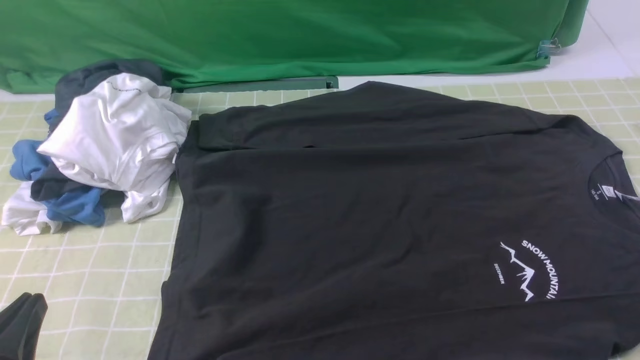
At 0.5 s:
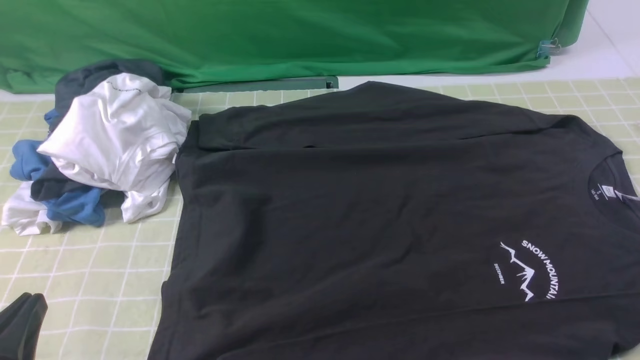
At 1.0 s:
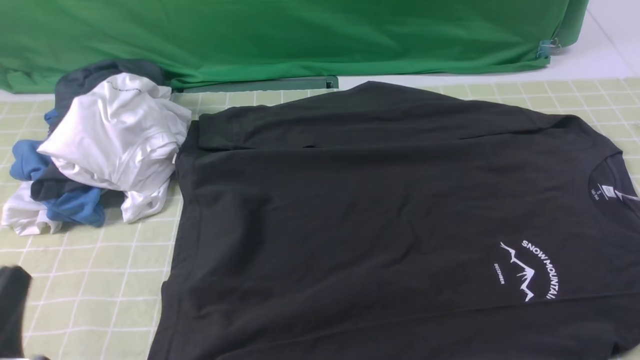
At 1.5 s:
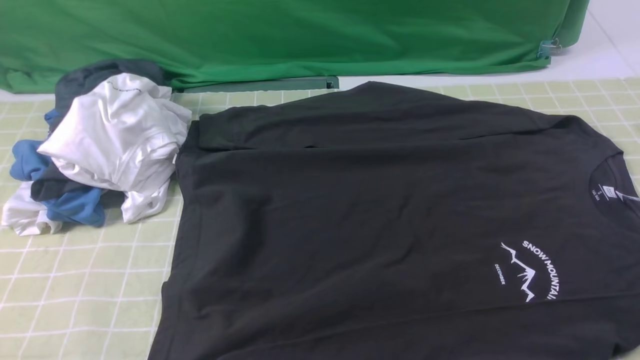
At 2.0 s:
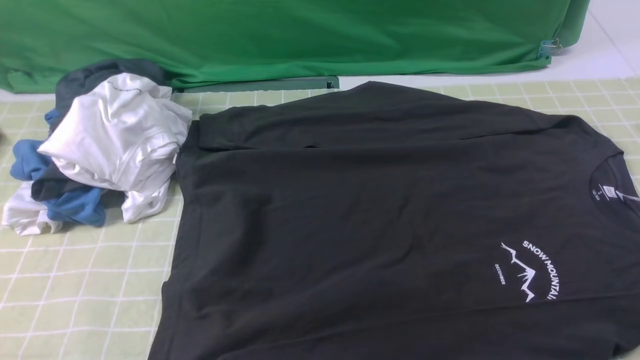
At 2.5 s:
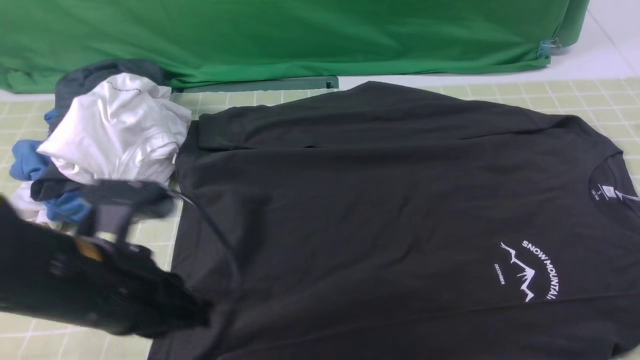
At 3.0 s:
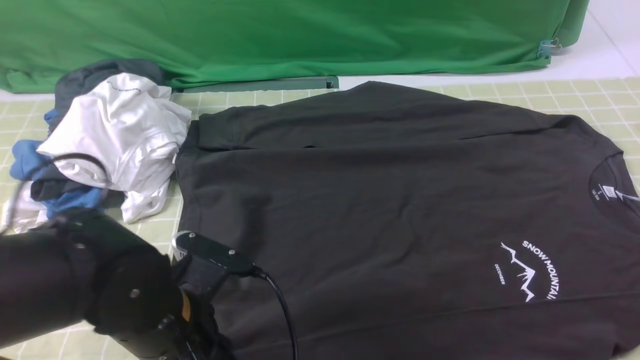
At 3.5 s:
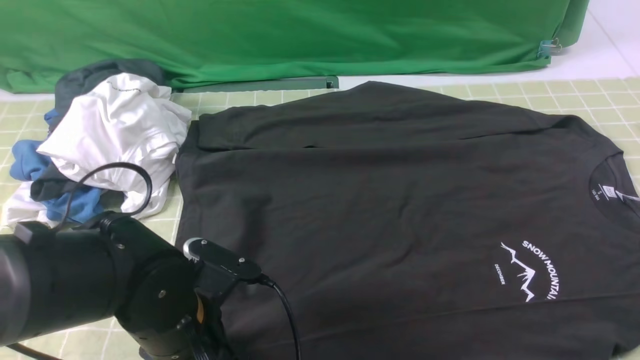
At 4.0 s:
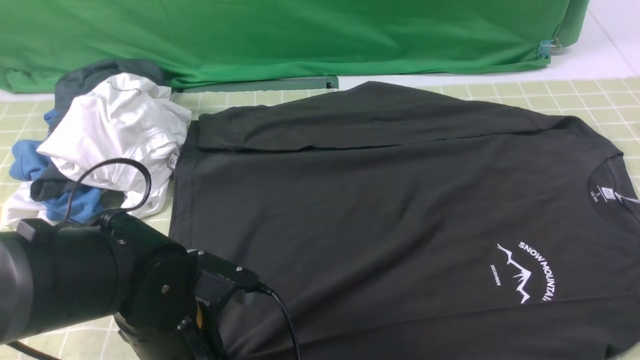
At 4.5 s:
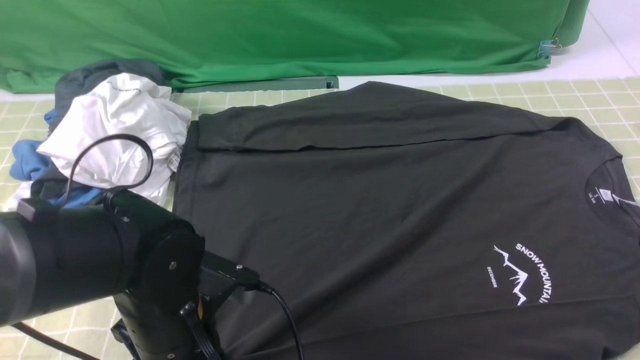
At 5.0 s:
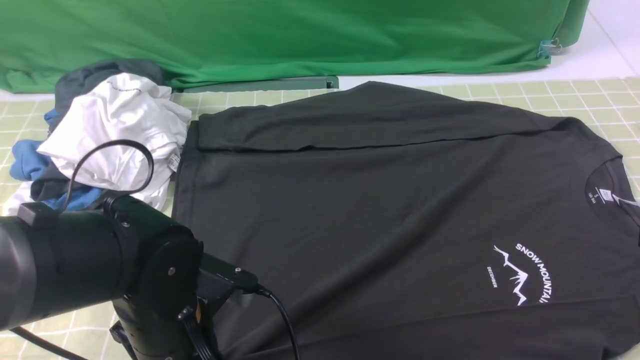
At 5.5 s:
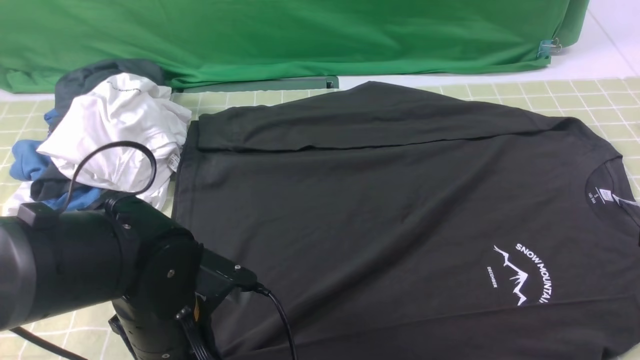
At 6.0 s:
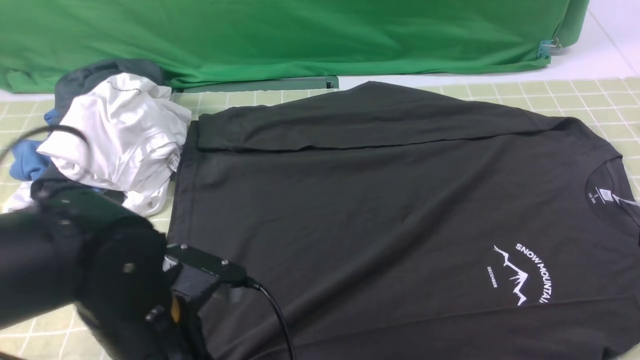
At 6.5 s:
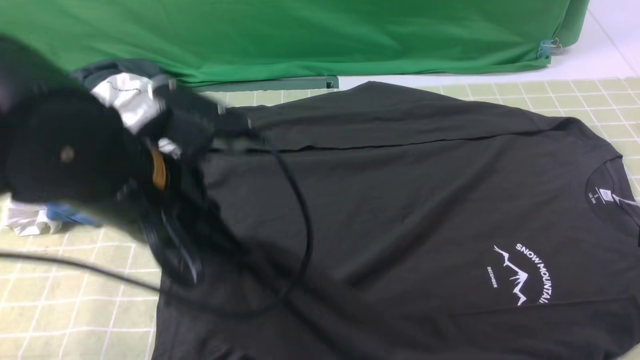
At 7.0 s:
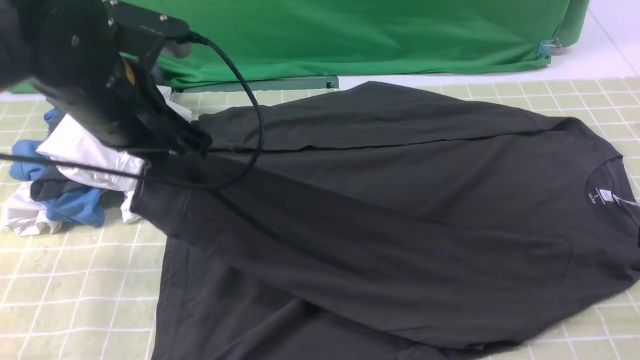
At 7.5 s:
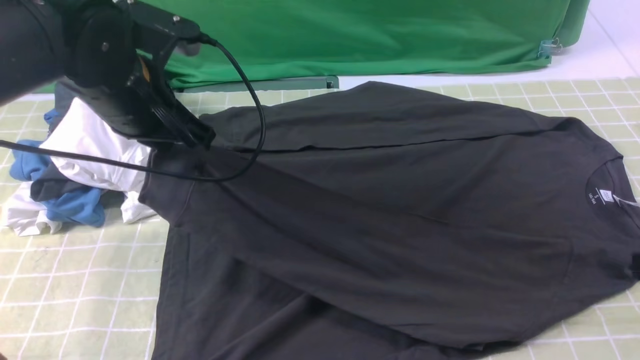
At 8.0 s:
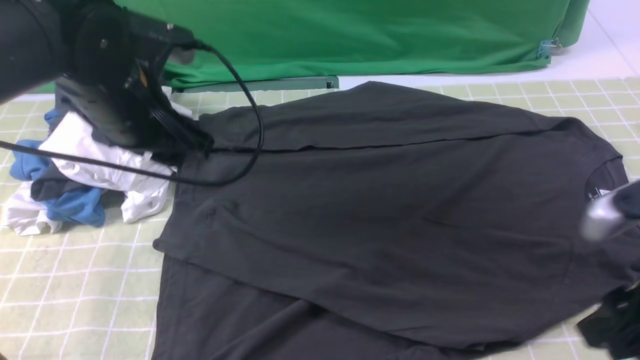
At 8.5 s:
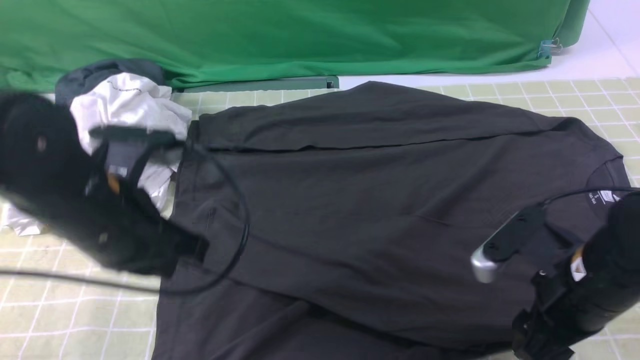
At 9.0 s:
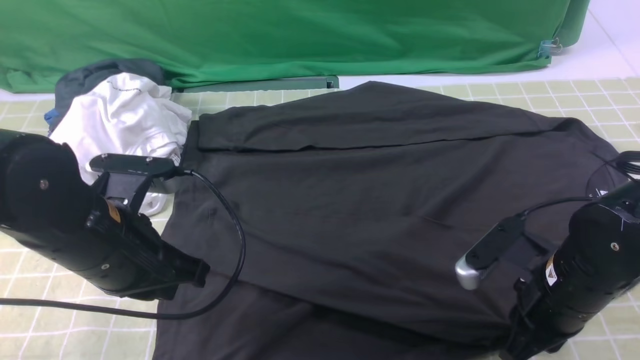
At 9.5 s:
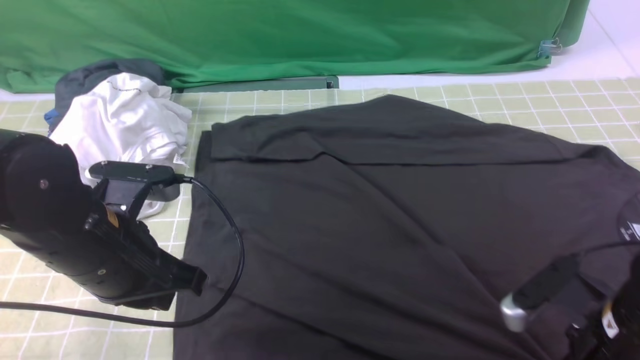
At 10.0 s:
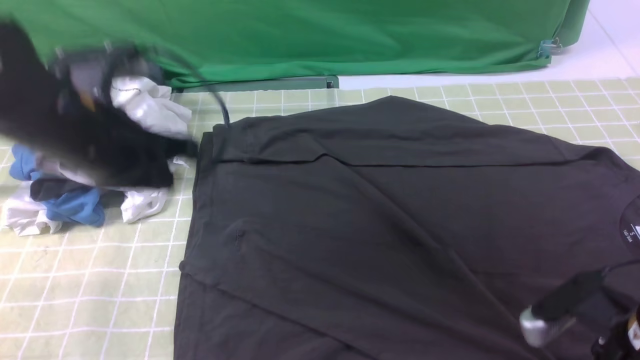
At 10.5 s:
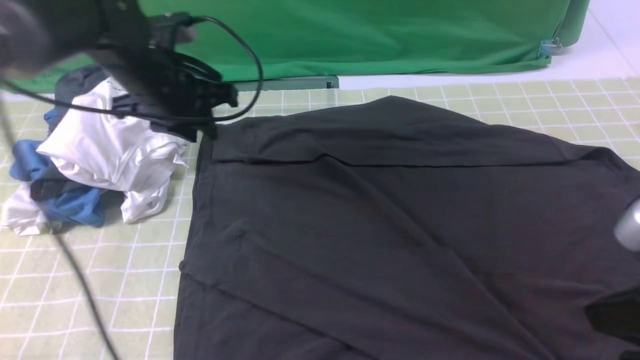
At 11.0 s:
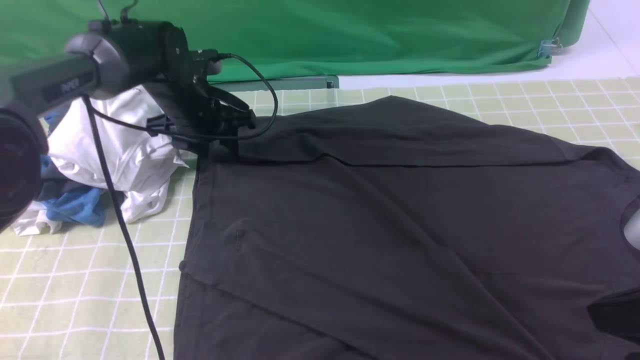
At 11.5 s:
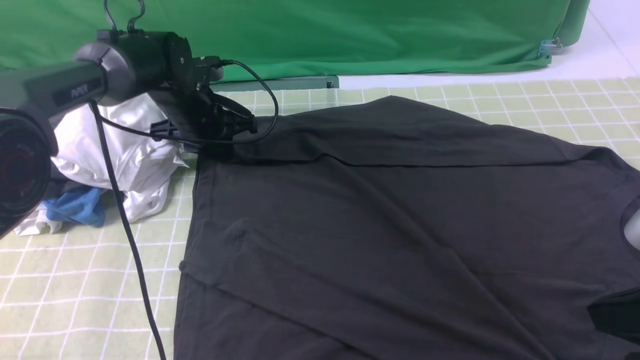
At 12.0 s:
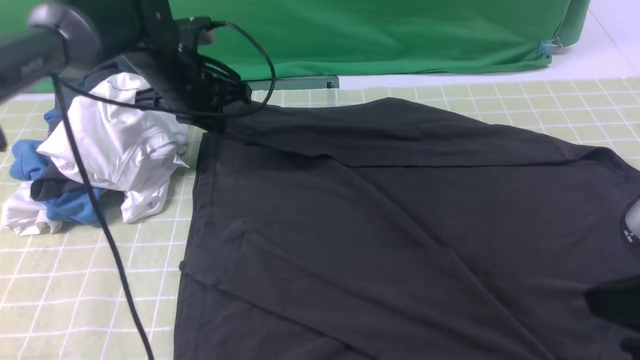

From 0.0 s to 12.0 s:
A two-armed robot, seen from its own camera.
Step, from 0.0 s to 4.0 s: use the left arm to clamp the cuff closest to it.
Step, from 4.5 s to 7.5 s: use the left arm to drag and place the cuff at the centered position on the left edge of the fabric.
Step, from 8.0 s to 11.5 s: use the left arm to clamp the cuff farthest from it.
From 0.0 s to 2.0 s: The left gripper is displaced upward and forward by some 15 cm.
From 2.0 s to 4.0 s: The left gripper is displaced downward and to the right by about 20 cm, and opens and closes again. Meanwhile the right gripper moves upward and forward, roughly 10 cm, and closes up.
From 4.0 s to 6.0 s: The left gripper ends up roughly 5 cm from where it was, and opens and closes again.
From 6.0 s to 8.0 s: The left gripper is displaced forward and upward by some 15 cm, and opens its fingers; the right gripper goes approximately 5 cm forward, and opens its fingers.
From 8.0 s to 10.0 s: The left gripper reaches roughly 10 cm backward, then returns, and closes up. The right gripper moves downward, some 5 cm, and closes, then reopens.
From 10.0 s to 12.0 s: The right gripper is displaced upward by some 10 cm, and closes, while the left gripper travels forward by approximately 15 cm, and opens, then closes once more.

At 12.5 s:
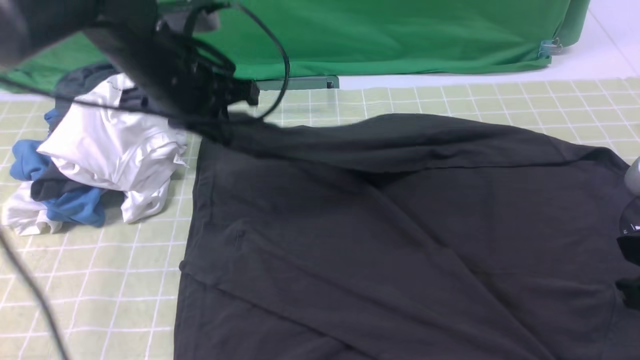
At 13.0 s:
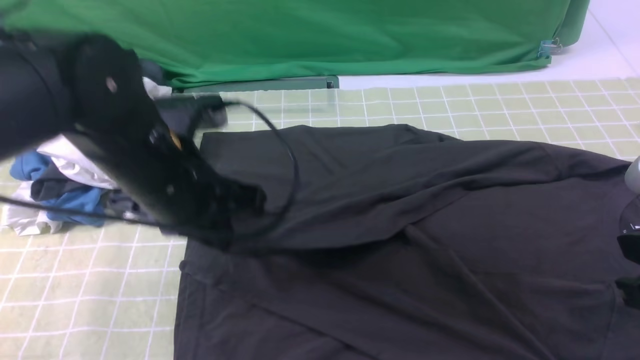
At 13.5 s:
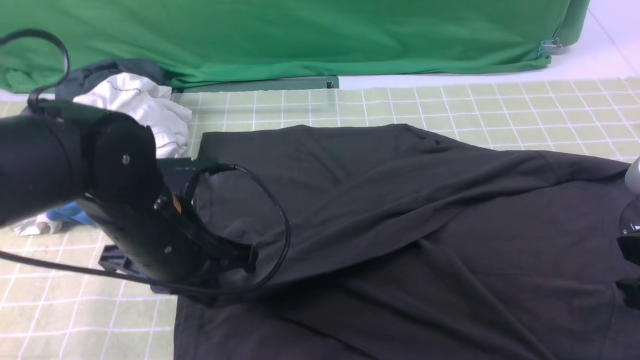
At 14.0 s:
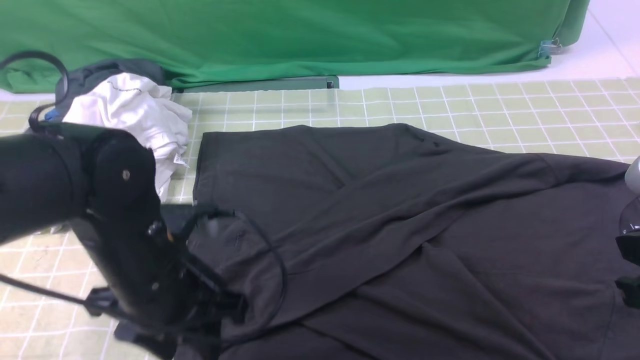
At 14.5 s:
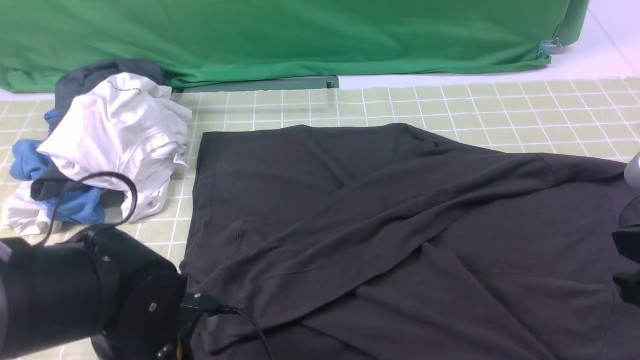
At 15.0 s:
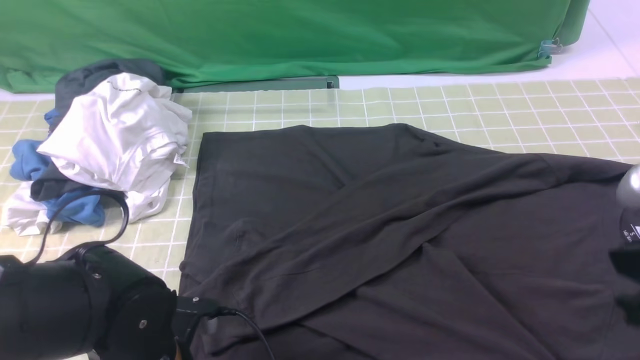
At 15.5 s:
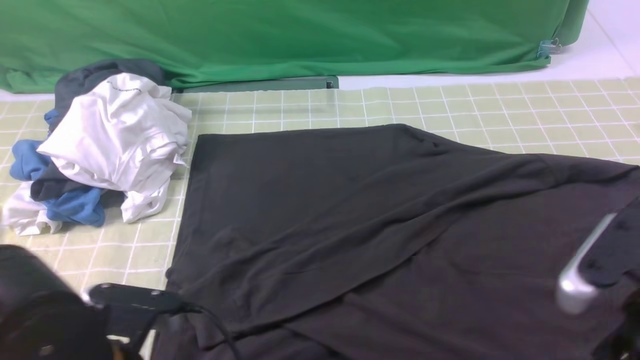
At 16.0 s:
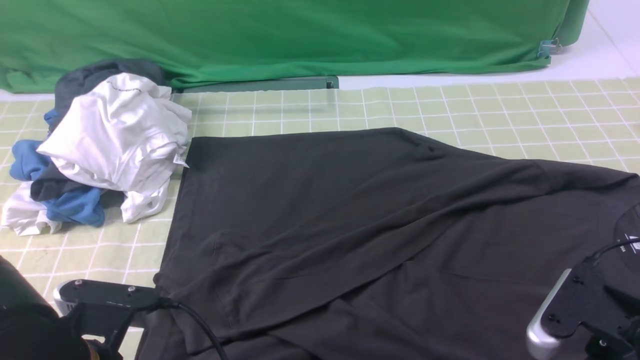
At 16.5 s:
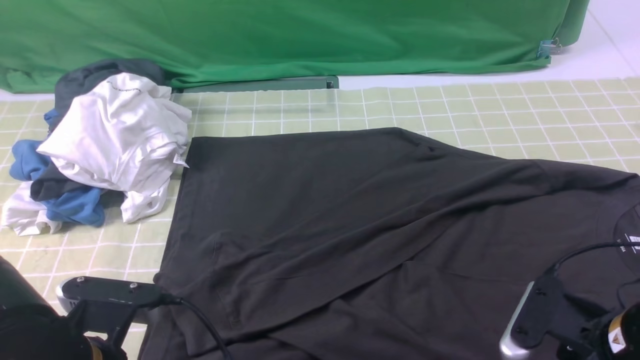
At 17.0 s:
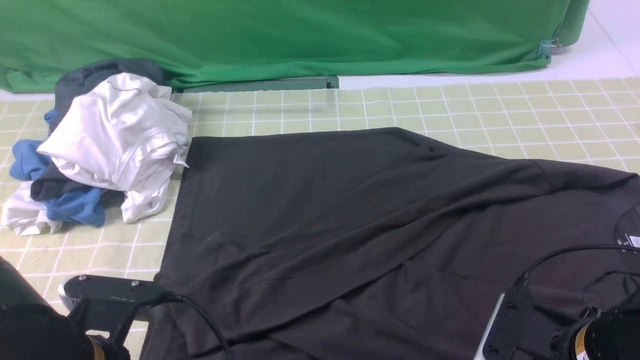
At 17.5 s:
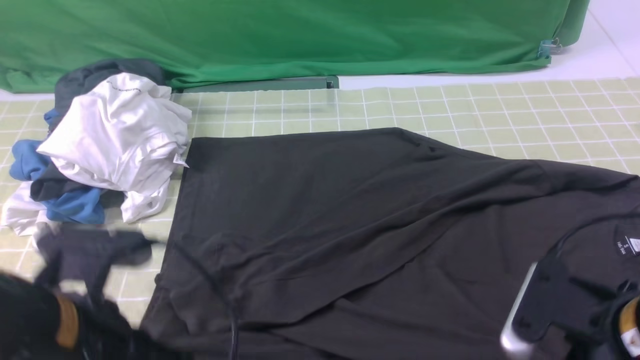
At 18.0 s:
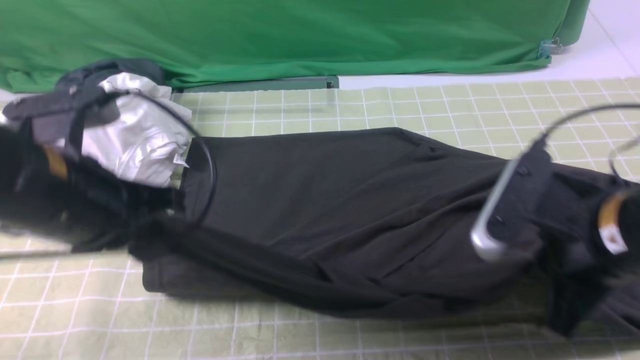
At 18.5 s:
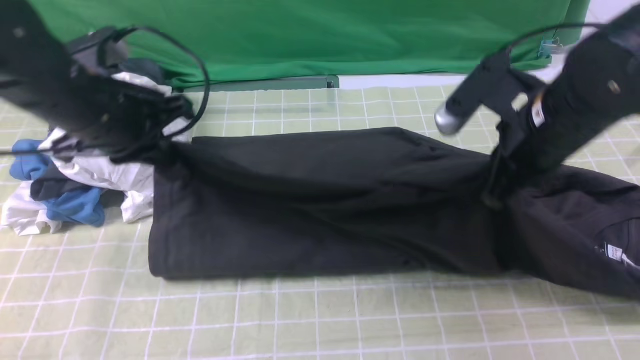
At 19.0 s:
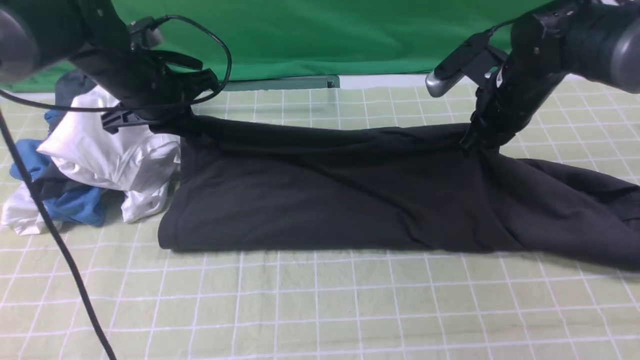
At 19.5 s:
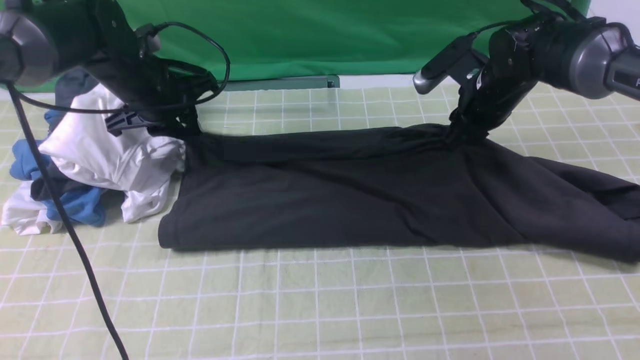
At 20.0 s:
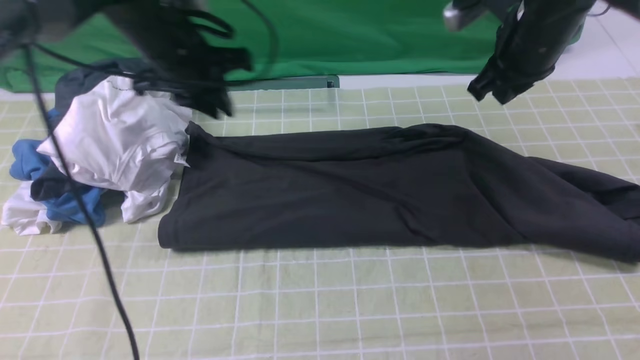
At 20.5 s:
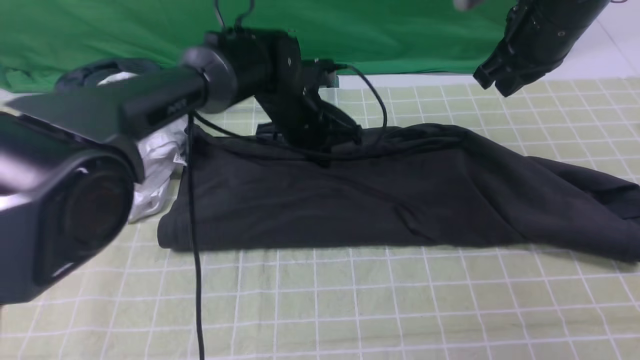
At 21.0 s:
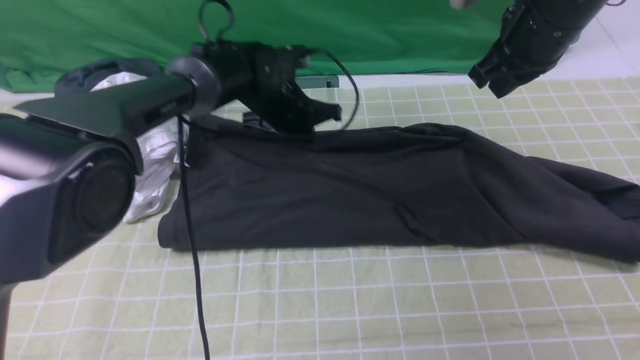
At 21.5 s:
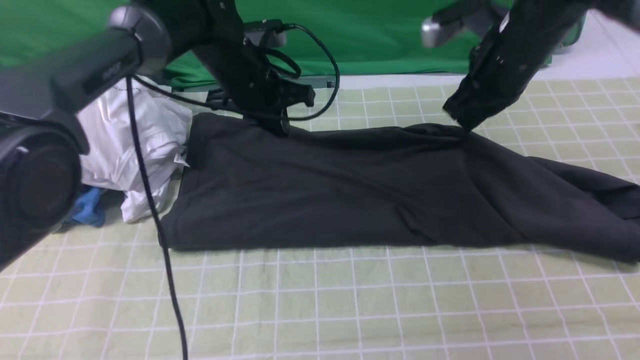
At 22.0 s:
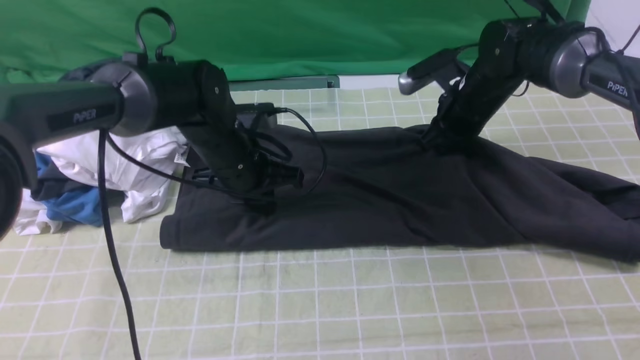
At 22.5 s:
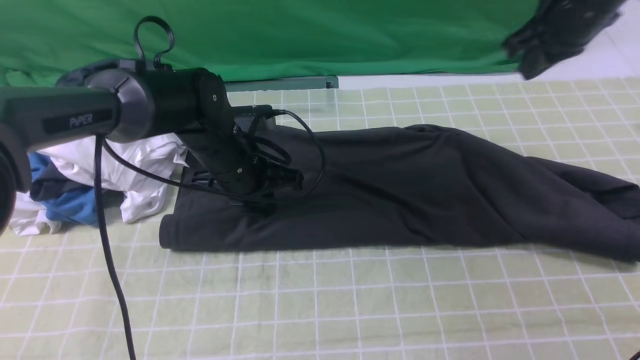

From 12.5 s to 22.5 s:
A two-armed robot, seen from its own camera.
Step, from 14.0 s to 17.0 s: use both arms simultaneously to clamp the lower edge of the clothing fabric.
Step, from 17.5 s to 19.5 s: use both arms to drag the lower edge of the fabric forward and fold it over the upper edge.
From 12.5 s to 14.5 s: The left gripper is displaced backward and downward by some 25 cm, and opens its fingers.
From 14.5 s to 16.5 s: The left gripper changes place by roughly 5 cm, and closes; the right gripper travels downward by roughly 15 cm, and opens its fingers.
From 16.5 s to 18.5 s: The left gripper is displaced forward by about 20 cm; the right gripper is displaced forward and upward by roughly 20 cm, and closes.
From 18.5 s to 20.5 s: The left gripper goes approximately 20 cm to the right, forward and downward, and opens, then closes again; the right gripper goes about 10 cm forward and upward, and opens, then closes once more.
From 20.5 s to 22.5 s: The left gripper shifts approximately 10 cm to the left and backward, while the right gripper shifts roughly 5 cm to the right, and moves roughly 15 cm downward and comes back.
